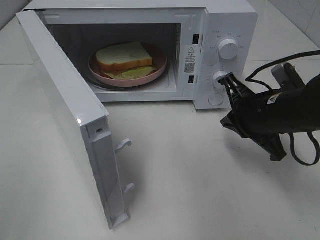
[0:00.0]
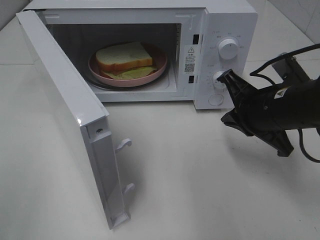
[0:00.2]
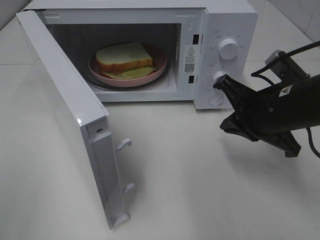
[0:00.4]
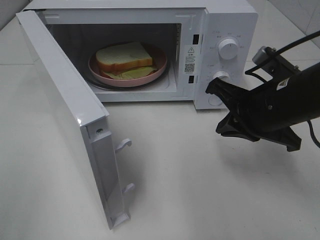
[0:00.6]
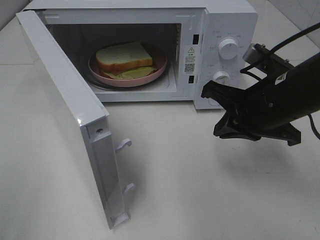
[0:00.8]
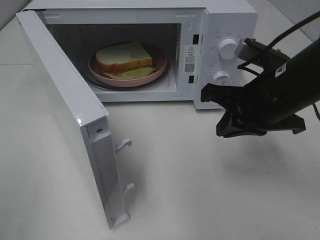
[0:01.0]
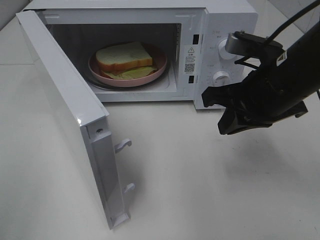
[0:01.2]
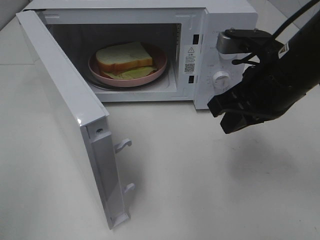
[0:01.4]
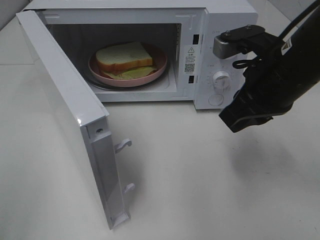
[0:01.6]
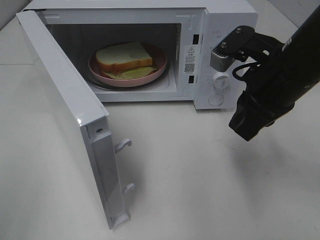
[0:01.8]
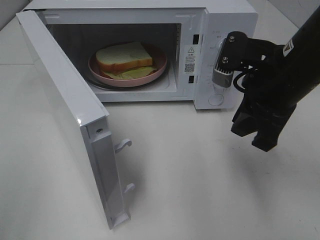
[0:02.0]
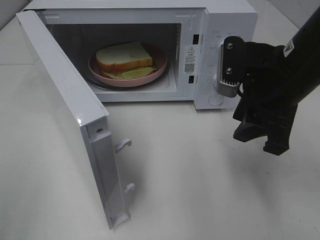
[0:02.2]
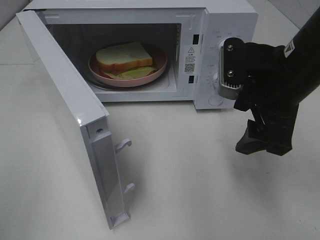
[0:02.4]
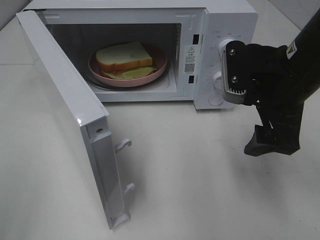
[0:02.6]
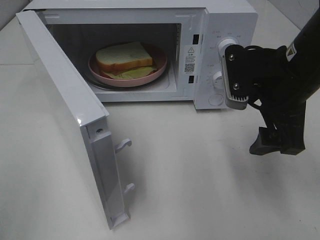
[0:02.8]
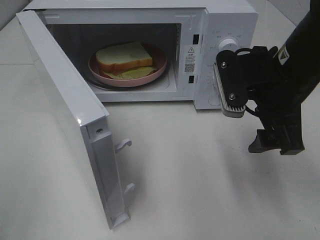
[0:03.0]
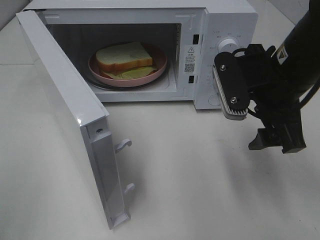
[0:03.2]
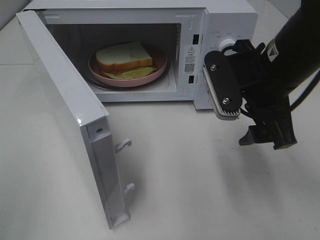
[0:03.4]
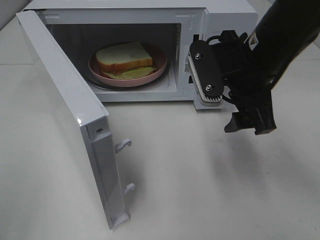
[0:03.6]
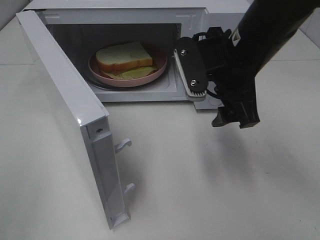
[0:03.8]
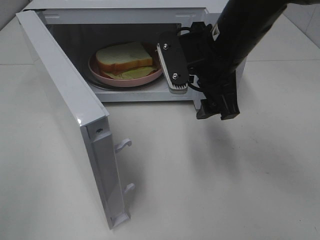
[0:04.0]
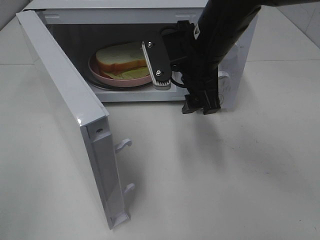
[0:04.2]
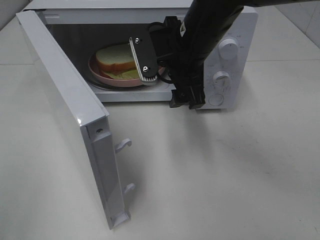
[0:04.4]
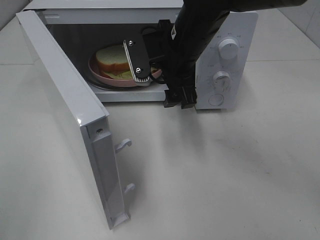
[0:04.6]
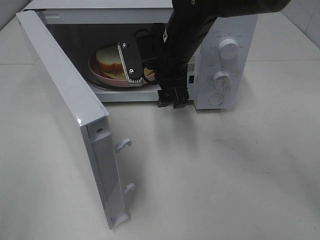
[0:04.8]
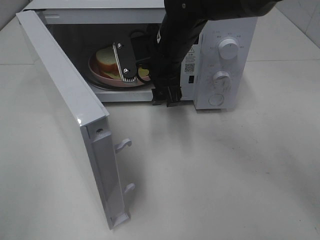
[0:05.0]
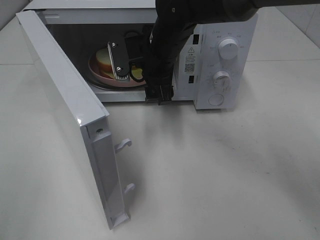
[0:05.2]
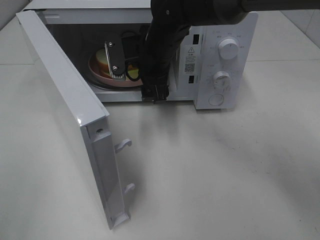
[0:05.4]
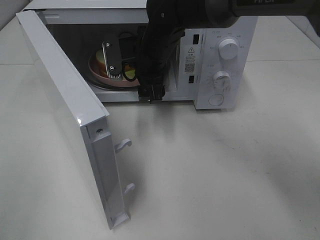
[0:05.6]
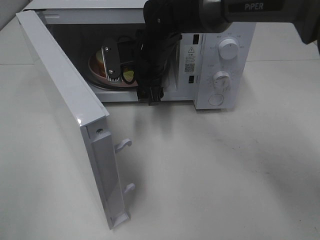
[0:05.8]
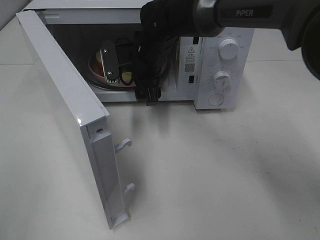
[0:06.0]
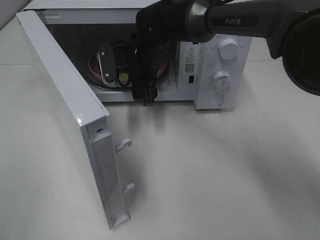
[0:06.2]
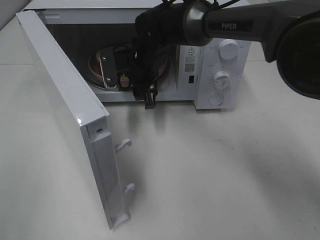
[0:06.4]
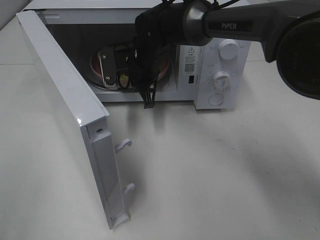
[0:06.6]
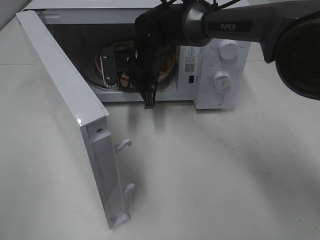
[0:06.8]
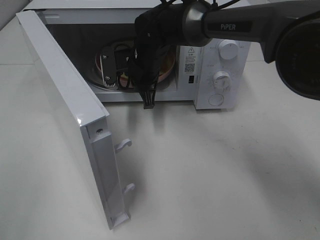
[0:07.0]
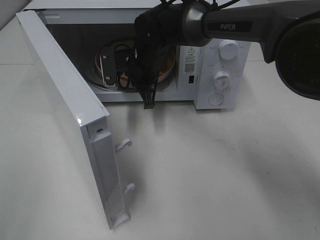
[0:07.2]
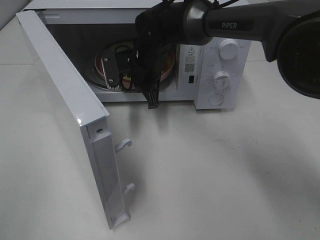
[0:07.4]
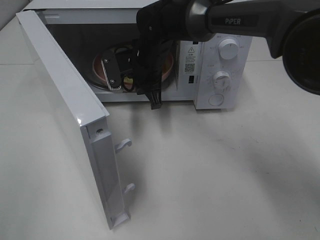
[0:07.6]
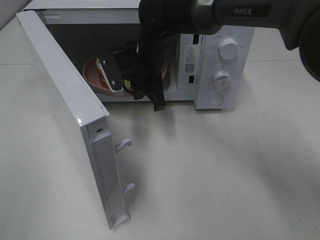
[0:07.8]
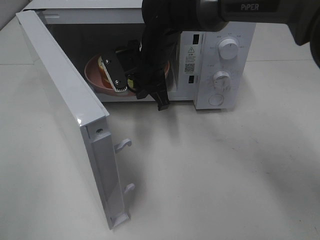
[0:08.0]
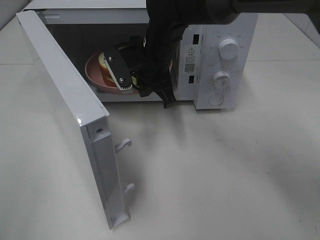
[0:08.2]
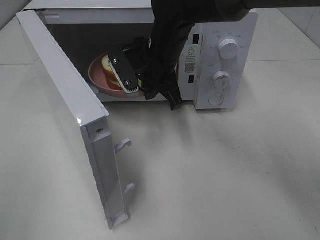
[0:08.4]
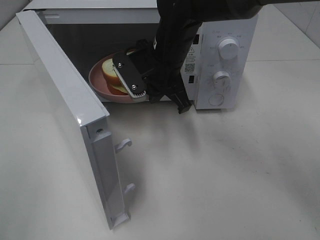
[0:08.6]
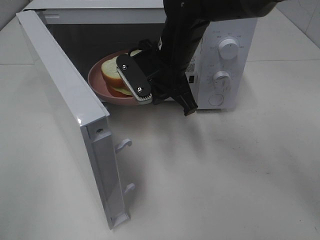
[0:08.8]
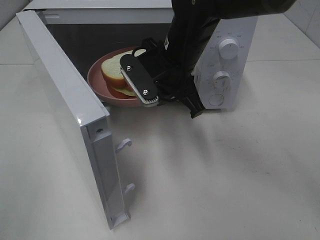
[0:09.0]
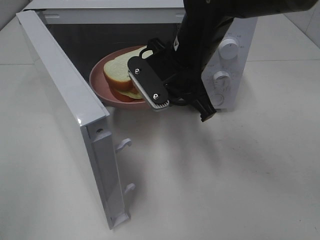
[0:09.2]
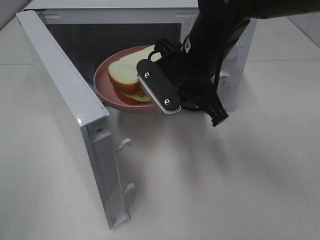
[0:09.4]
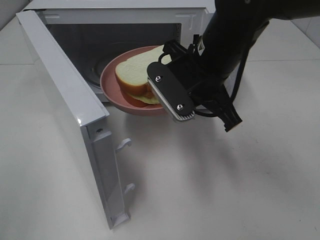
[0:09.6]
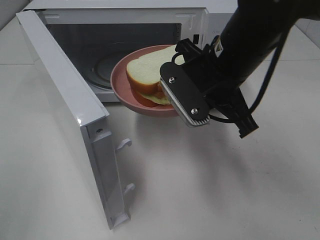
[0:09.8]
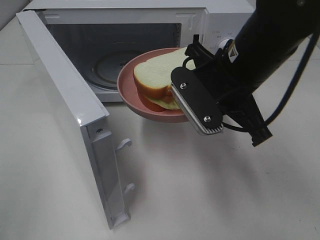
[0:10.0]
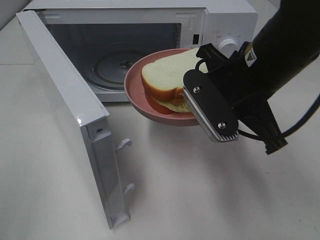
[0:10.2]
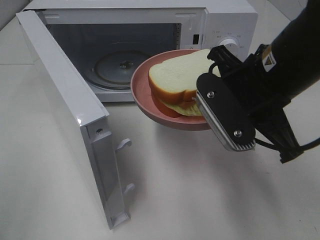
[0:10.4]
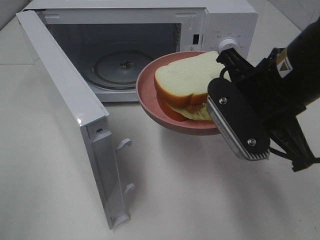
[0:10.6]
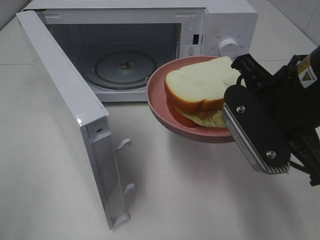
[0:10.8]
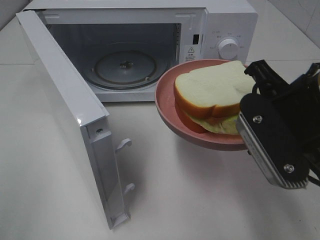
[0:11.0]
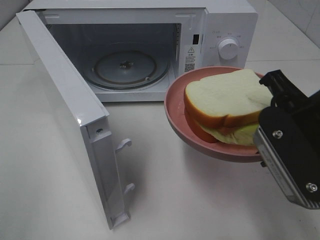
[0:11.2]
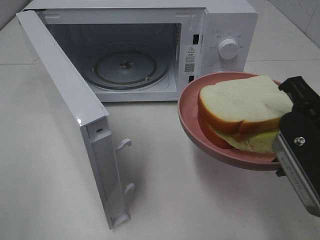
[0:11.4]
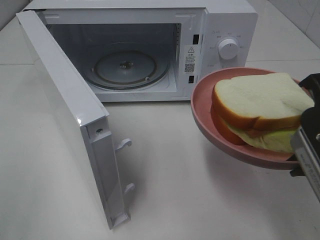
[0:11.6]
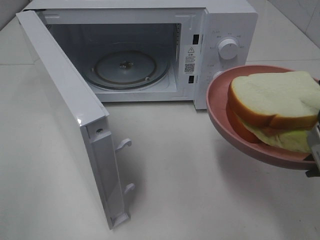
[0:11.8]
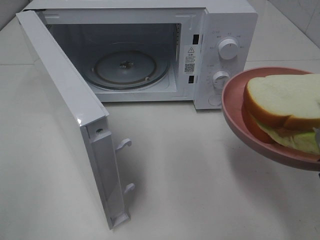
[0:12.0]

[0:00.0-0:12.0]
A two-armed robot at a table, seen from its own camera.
Task of the whole recording: Heat Sandwich.
Step, 0:00.0 to 0:07.0: Right hand: grab the plate with the sandwich.
0:00.0 to 0:01.6: The right gripper is displaced upward by about 10 cm.
0:01.6 to 0:03.0: The right gripper opens.
0:03.0 to 0:04.4: The right gripper goes approximately 15 cm to the left and forward.
0:04.4 to 0:06.0: The right gripper moves forward, downward and to the left, roughly 10 cm.
0:06.0 to 0:07.6: The right gripper closes.
0:07.6 to 0:09.0: The right gripper heads backward, upward and to the right, covering roughly 10 cm.
0:09.0 to 0:10.4: The right gripper heads backward and to the right, covering approximately 15 cm.
0:10.4 to 0:12.0: The right gripper goes roughly 15 cm backward and to the right.

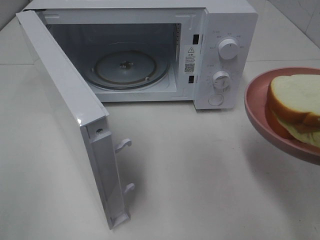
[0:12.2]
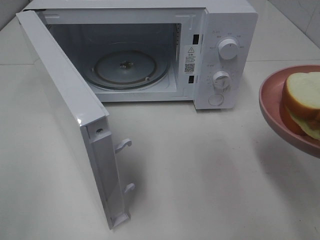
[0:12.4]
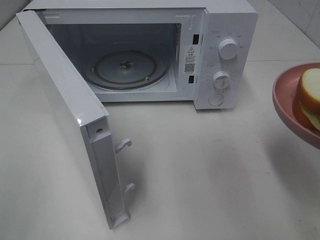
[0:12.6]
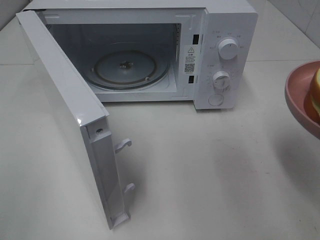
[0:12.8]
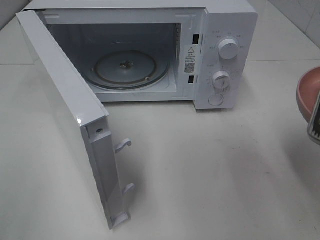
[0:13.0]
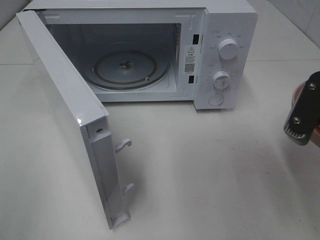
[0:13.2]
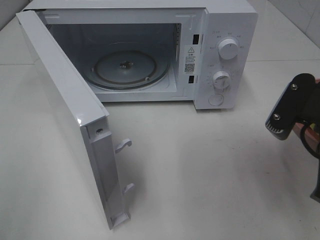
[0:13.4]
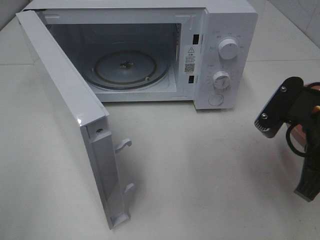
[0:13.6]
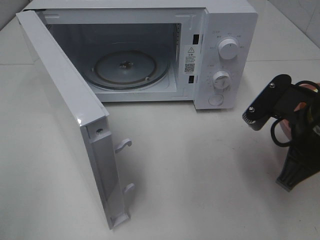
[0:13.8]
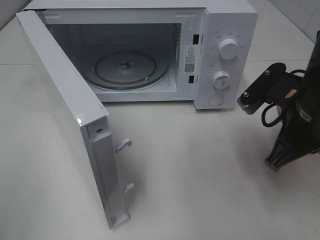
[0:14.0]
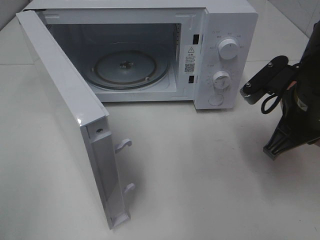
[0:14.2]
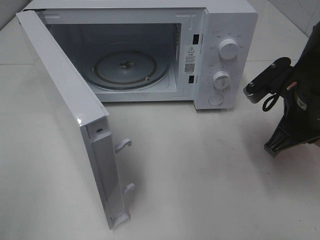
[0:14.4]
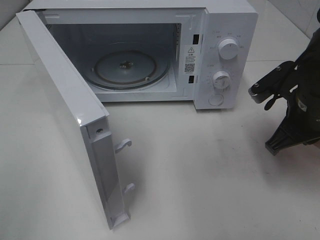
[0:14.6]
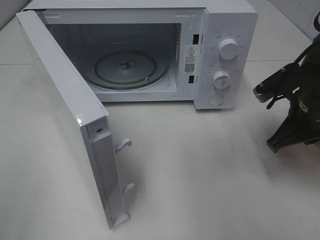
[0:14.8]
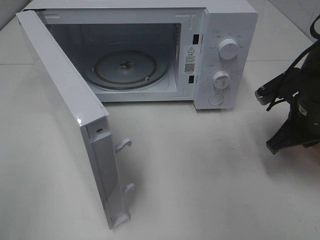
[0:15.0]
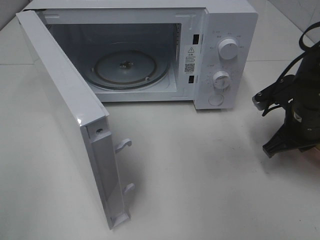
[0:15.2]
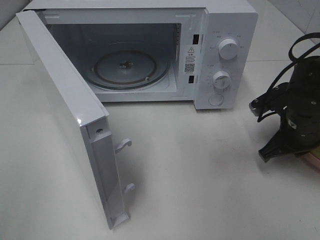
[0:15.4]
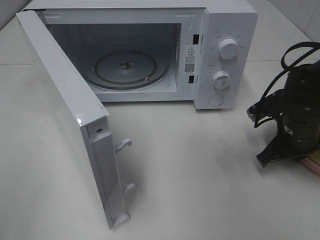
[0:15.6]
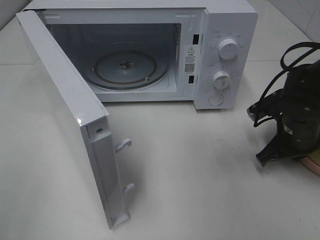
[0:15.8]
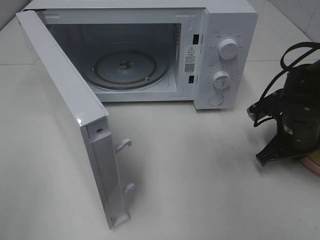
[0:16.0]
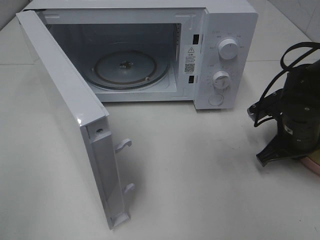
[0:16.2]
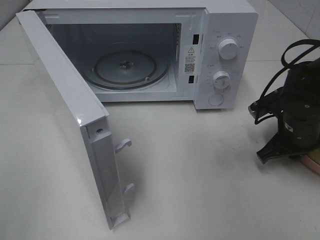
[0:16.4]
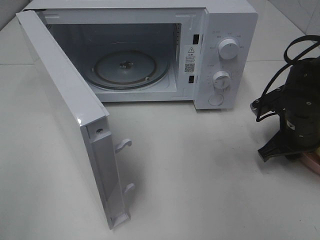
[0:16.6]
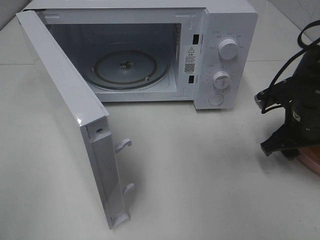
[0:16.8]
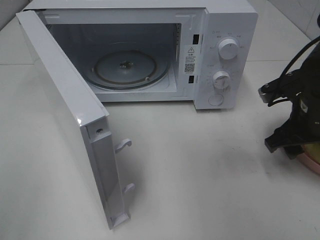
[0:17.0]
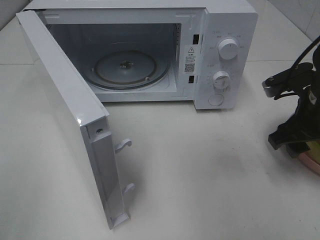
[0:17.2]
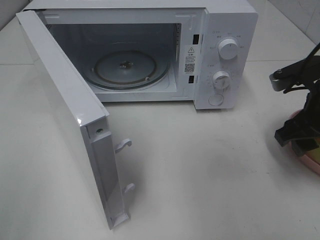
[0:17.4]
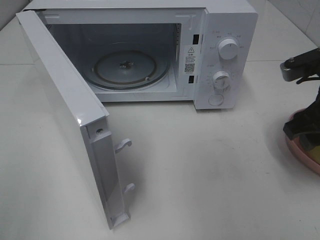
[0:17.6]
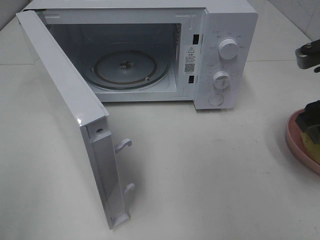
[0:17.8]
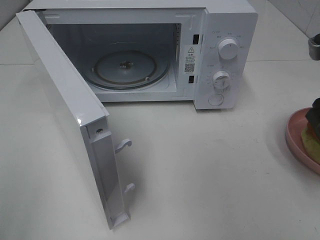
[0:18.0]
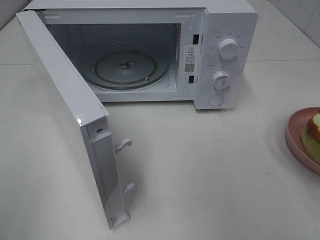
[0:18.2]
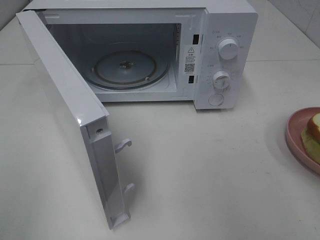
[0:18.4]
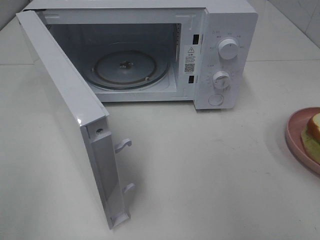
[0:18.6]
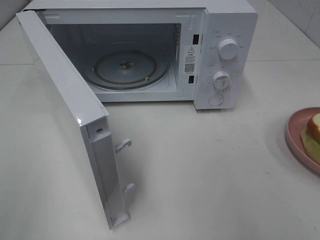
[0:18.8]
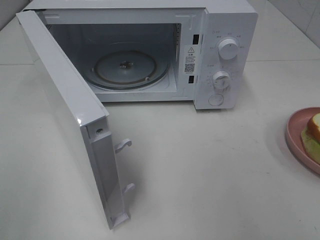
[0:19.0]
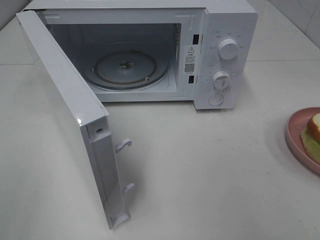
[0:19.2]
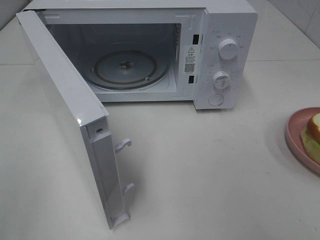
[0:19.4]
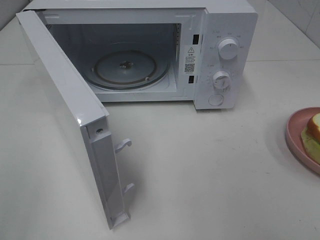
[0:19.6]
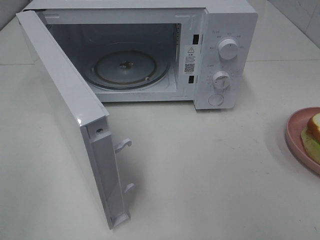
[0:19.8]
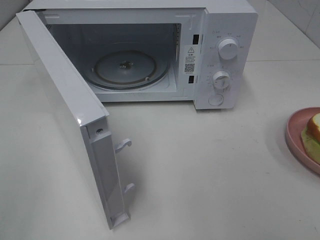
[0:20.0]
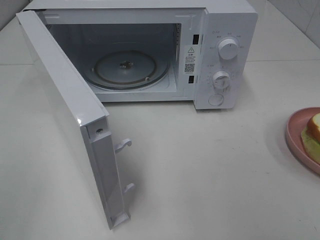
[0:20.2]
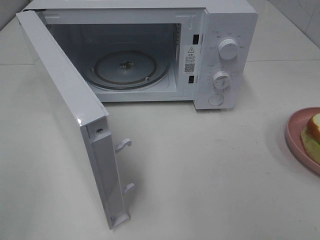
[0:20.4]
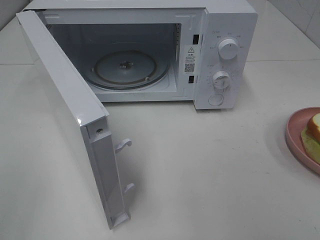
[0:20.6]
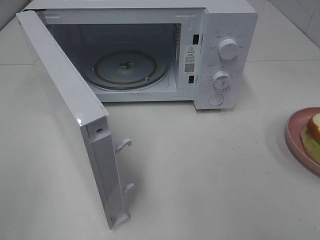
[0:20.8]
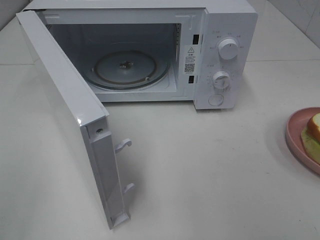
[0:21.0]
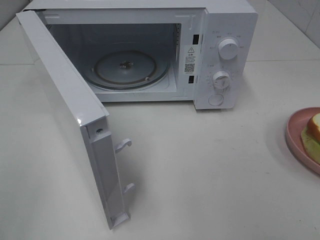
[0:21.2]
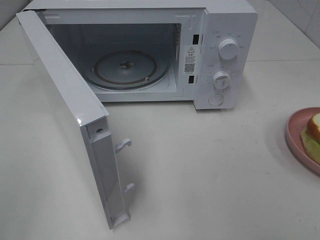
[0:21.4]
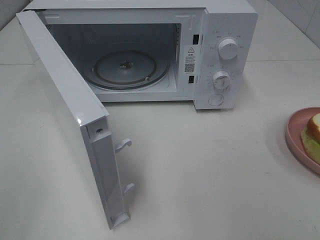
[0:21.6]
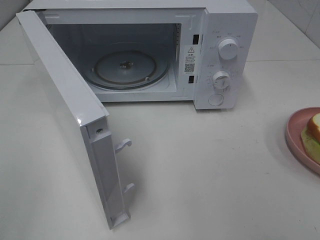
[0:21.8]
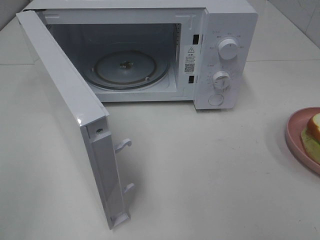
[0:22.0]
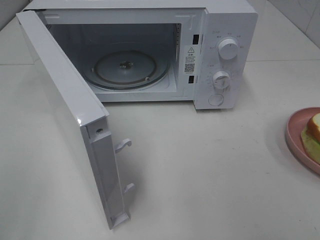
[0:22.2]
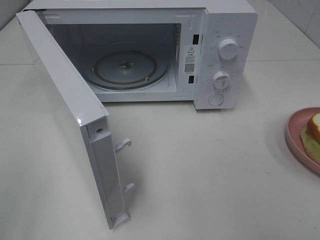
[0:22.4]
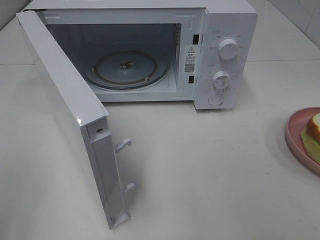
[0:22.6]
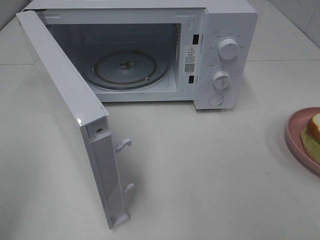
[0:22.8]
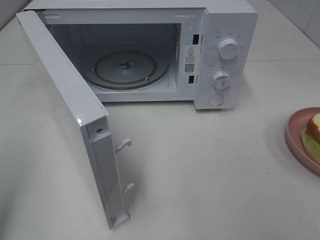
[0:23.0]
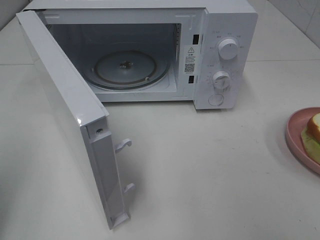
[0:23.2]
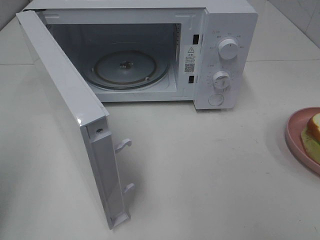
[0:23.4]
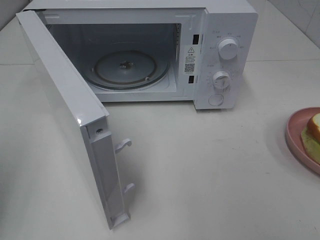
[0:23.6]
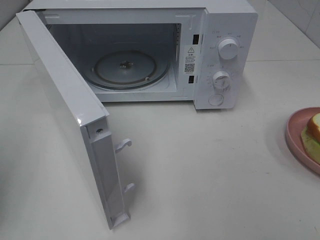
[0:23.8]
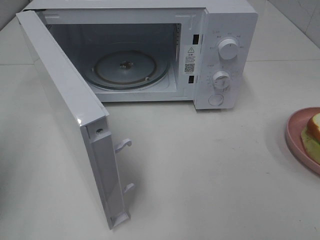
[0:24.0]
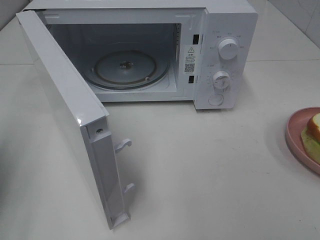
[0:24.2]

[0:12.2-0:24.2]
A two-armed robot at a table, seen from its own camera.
Task of the whole recording: Heat Sandwich.
Step, 0:12.2 to 0:17.4: Right hand: place the plate on the table.
0:12.2 to 0:13.8: The right gripper heads forward and downward, covering about 10 cm.
0:13.8 to 0:15.2: The right gripper goes some 10 cm forward and downward.
0:15.2 to 0:16.6: The right gripper opens its fingers.
0:16.6 to 0:18.2: The right gripper heads upward and backward, covering roughly 20 cm.
0:22.6 to 0:24.2: The left gripper is displaced forward and downward by about 15 cm, and closes up.
